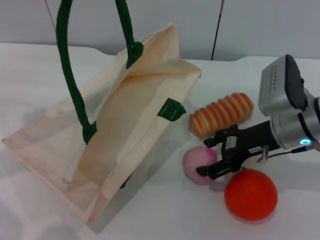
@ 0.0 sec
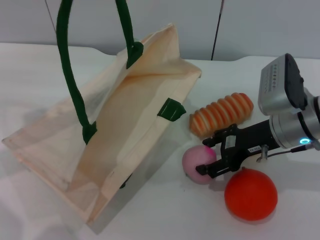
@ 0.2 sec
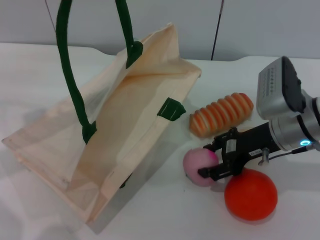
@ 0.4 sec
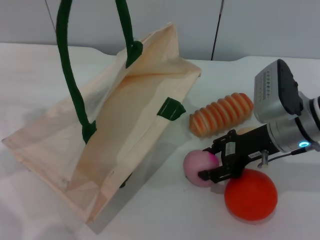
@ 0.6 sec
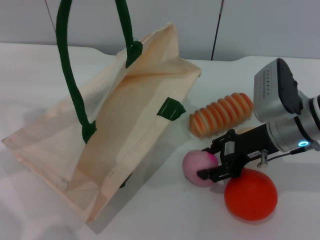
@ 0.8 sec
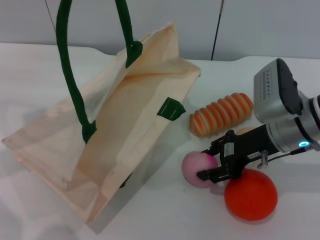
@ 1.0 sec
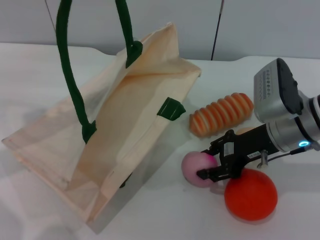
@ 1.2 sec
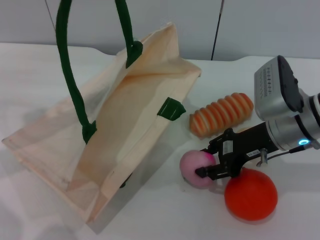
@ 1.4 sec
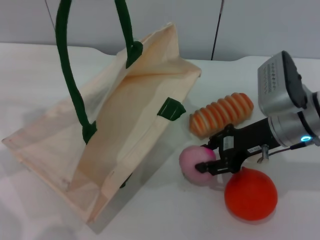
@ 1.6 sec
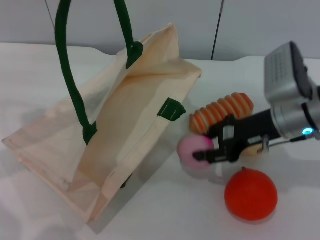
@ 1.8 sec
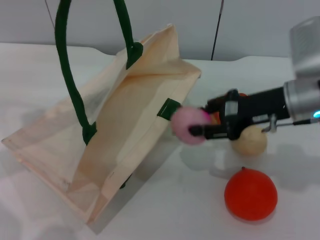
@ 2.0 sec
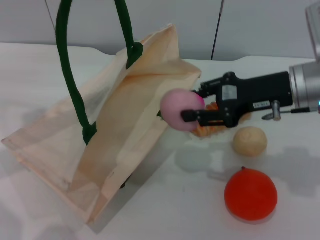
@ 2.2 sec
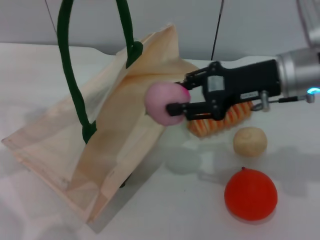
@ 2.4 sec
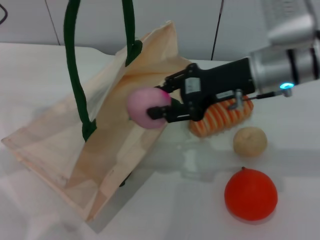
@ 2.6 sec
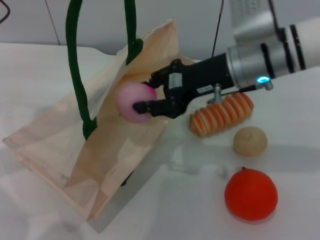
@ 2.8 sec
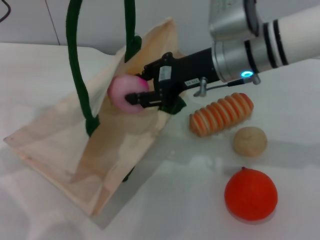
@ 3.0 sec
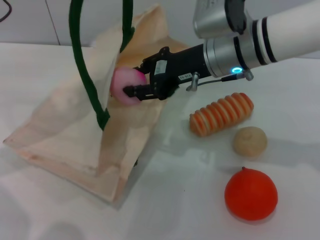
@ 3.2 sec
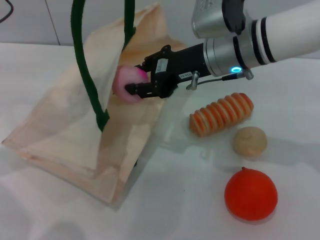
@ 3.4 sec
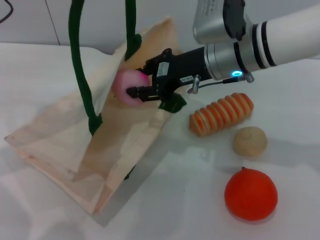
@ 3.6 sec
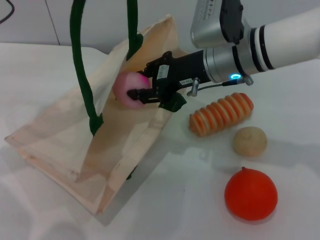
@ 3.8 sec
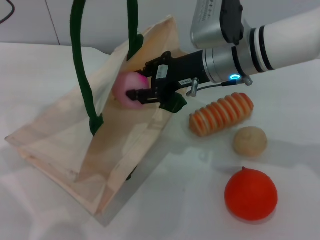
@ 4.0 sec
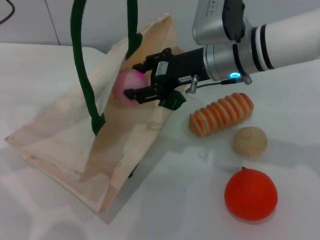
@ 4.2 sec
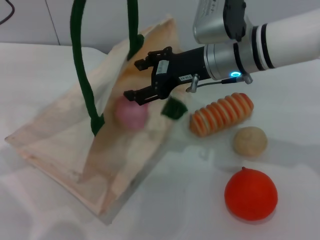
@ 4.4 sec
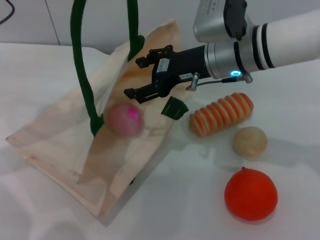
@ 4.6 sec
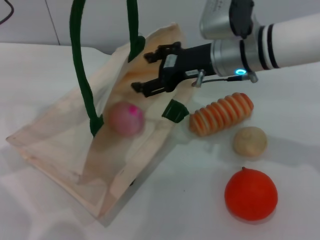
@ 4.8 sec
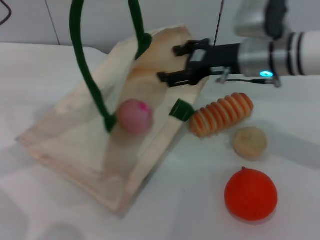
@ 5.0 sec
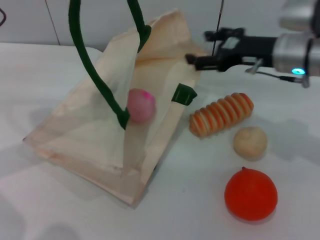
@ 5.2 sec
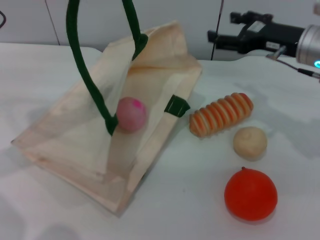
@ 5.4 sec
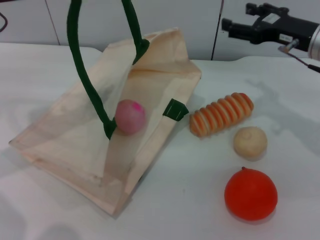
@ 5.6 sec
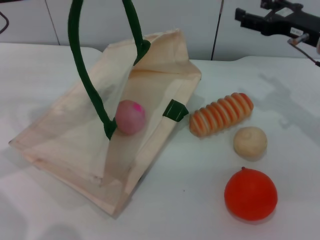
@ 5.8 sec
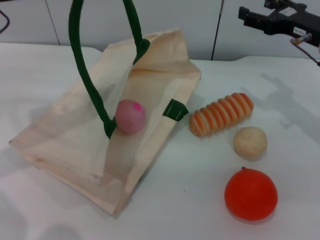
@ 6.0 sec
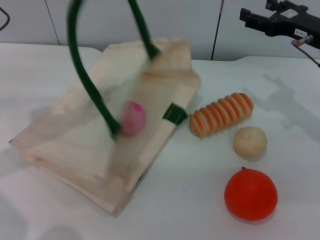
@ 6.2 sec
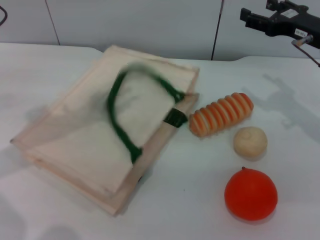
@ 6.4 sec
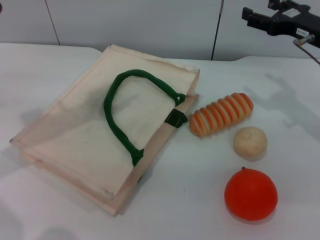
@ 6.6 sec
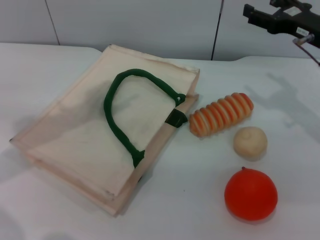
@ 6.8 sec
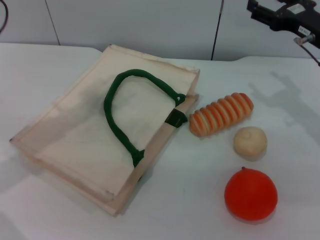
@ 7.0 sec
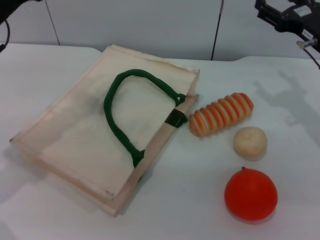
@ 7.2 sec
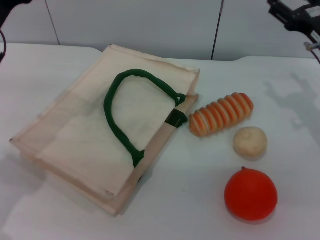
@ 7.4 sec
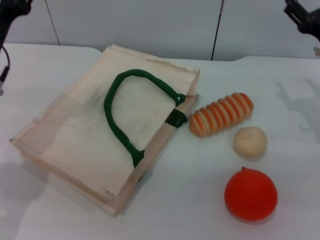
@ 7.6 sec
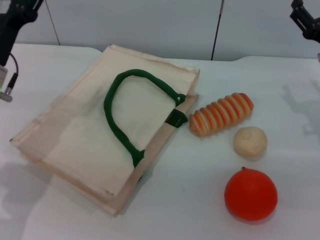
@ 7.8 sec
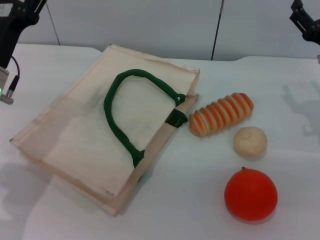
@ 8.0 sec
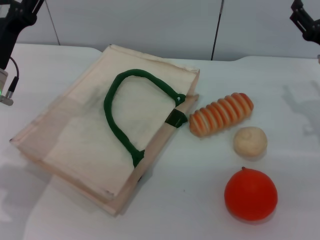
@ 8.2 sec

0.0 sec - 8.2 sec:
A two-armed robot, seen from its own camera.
Task of the whole recording: pick up the peach from the table and place it in the white handbag.
Step, 2.0 sec - 4.2 sec: Place the peach into the woven bag with the right gripper.
0.0 sec - 1.6 sec: The right gripper closes.
1.6 sec - 3.2 sec: The right gripper travels to the left and upward by about 10 cm.
3.2 sec - 5.0 sec: The right gripper heads to the right, covering roughly 5 cm, and opens its fingers.
5.0 sec - 6.6 sec: The right gripper heads to the right, covering roughly 10 cm.
6.6 sec - 8.2 sec: The right gripper moves downward, about 5 cm, while the left gripper heads downward, covering approximately 15 cm, and opens up.
